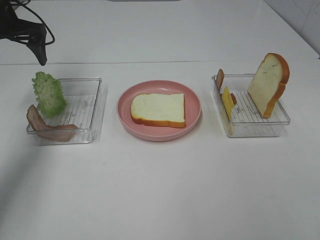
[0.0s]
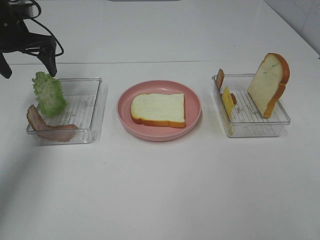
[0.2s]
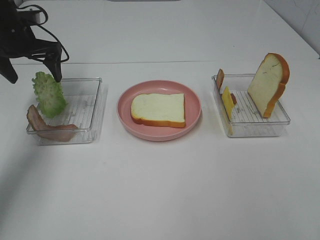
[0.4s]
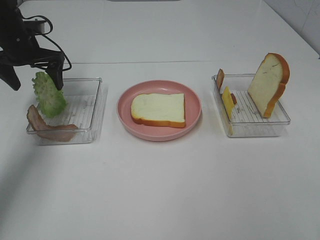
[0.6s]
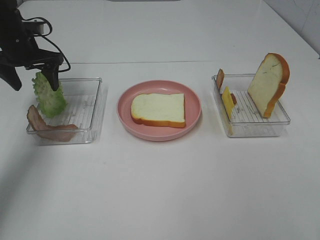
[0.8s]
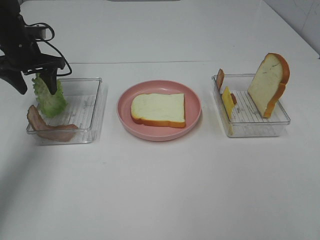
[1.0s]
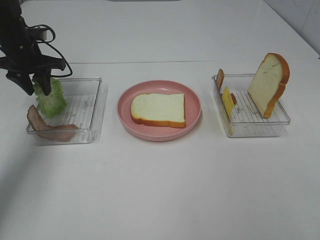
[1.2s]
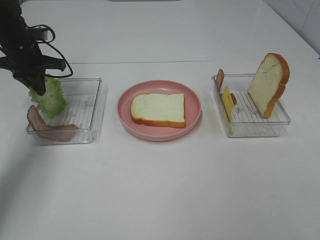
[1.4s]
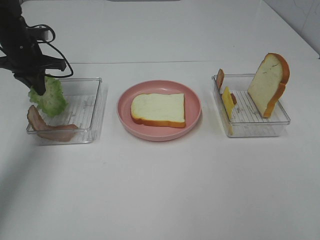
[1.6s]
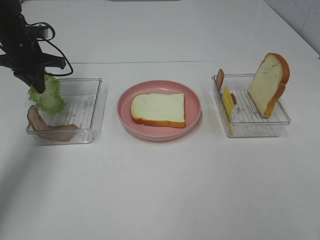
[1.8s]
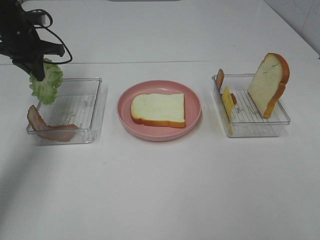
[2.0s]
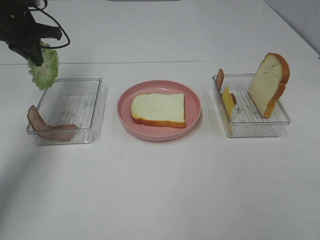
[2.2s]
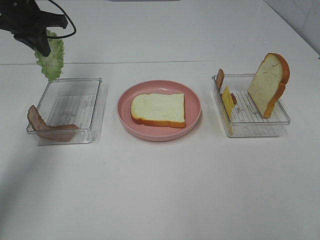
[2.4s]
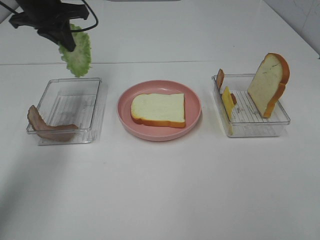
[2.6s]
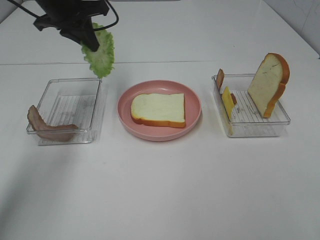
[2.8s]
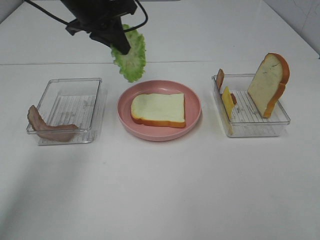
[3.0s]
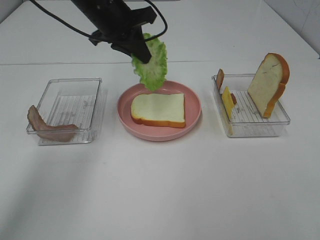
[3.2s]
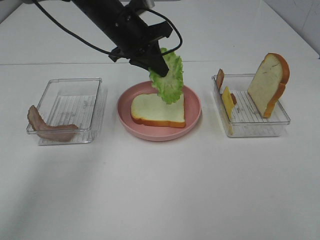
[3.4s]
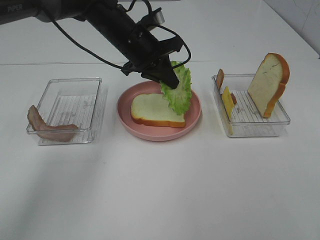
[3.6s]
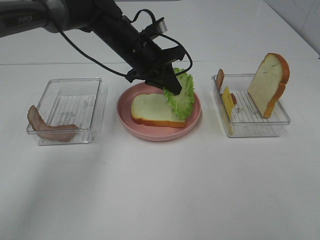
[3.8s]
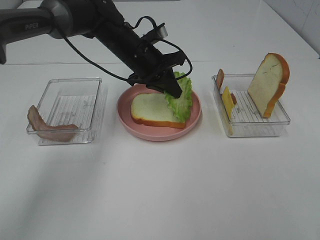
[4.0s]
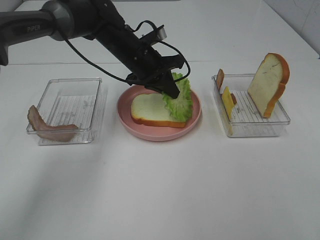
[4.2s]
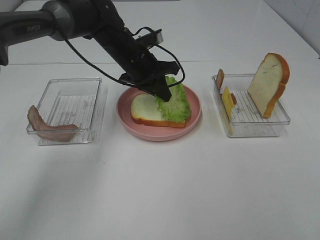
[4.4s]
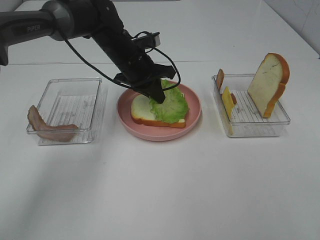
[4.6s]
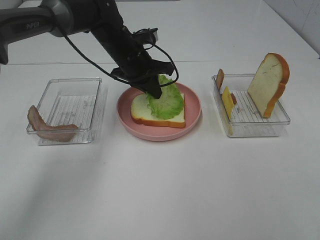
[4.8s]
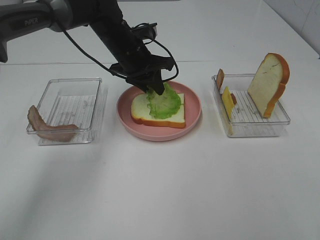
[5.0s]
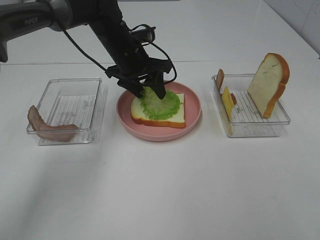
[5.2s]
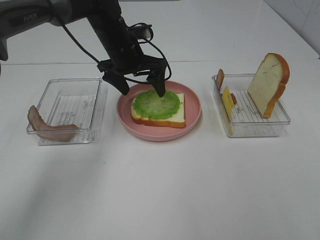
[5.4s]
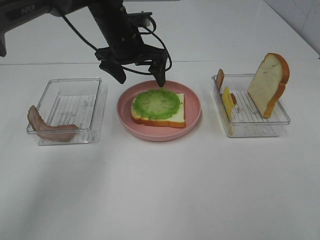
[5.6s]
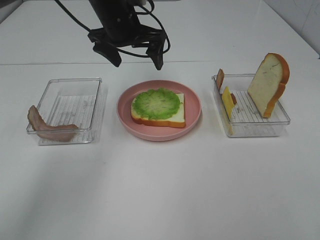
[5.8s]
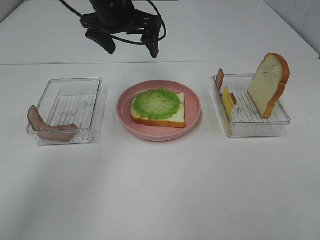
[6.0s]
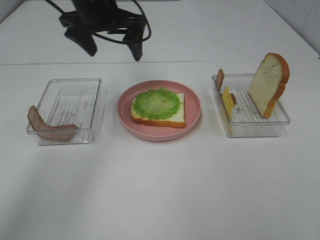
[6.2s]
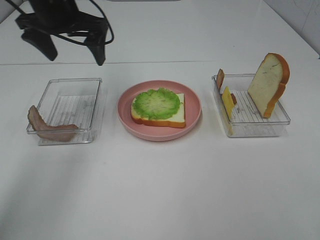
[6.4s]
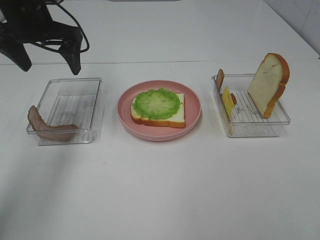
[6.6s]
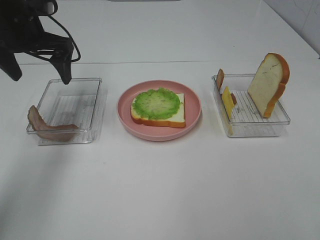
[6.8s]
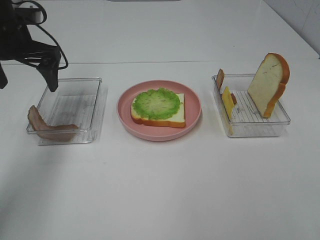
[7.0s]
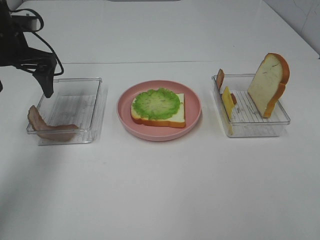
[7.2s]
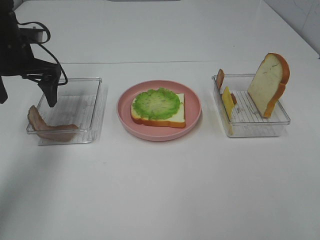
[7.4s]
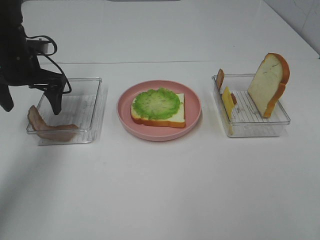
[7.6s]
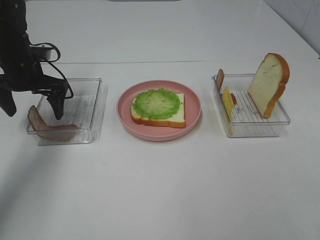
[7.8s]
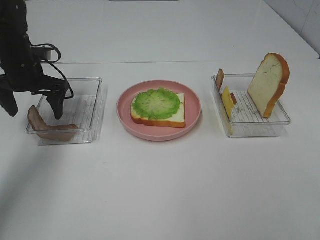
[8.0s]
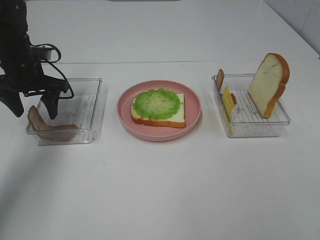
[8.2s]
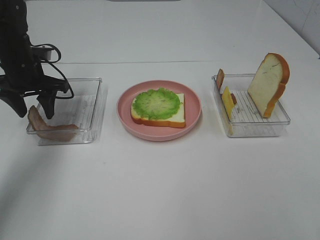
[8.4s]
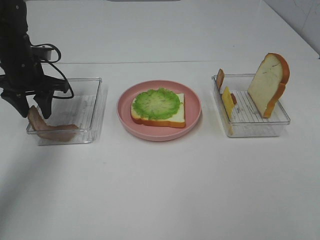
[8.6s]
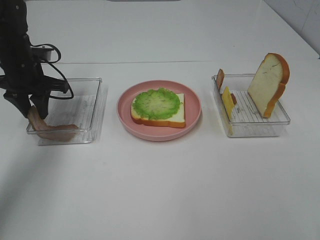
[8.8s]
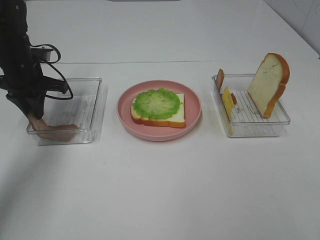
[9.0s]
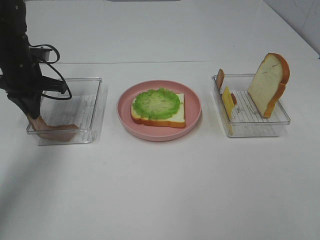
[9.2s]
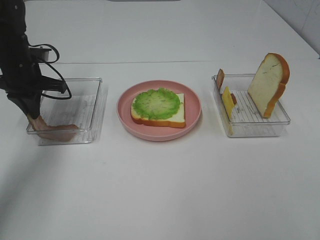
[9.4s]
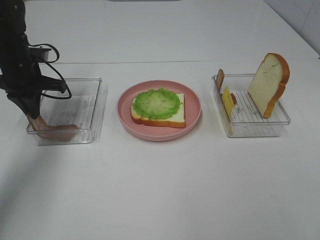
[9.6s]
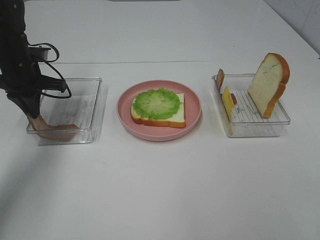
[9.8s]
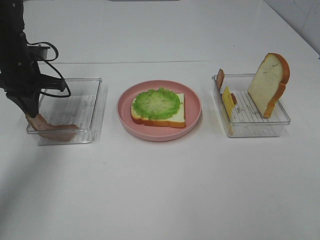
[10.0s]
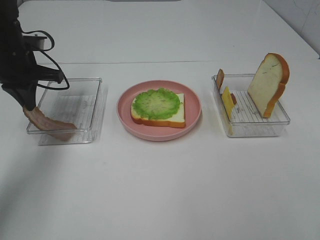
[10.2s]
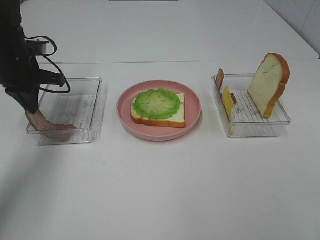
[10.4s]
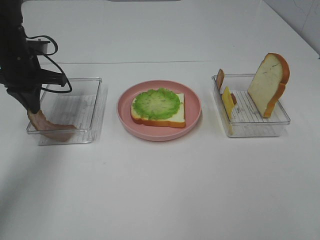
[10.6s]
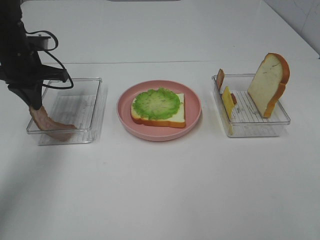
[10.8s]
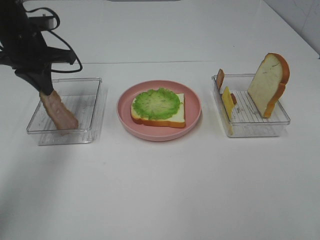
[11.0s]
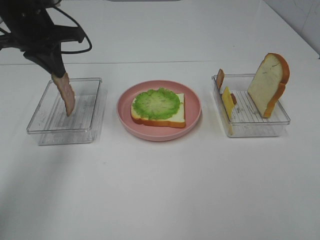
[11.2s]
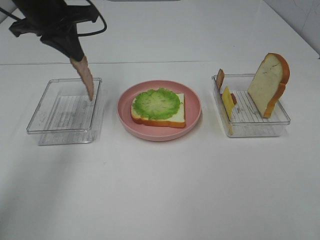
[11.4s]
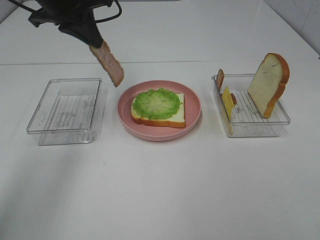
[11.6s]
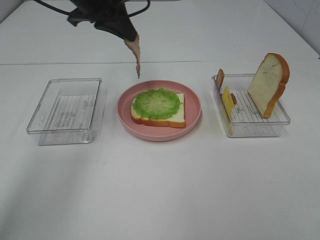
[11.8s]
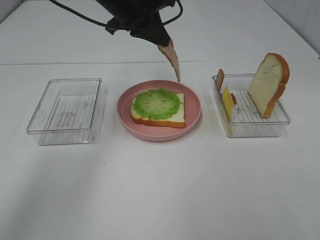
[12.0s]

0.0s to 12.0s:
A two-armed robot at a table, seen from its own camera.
Task of the whole recording: Make sandwiches.
Step, 0.0s to 1.8s: Left hand:grab the lettuce slice.
Step, 2.0s to 5.6s: Left hand:place the lettuce slice on the bread slice.
Step, 5.8s to 9.8s: Left hand:grab the bacon.
0.0s to 1.6s: The left gripper travels downward by about 10 cm, and closes.
1.6s to 3.0s: The left gripper travels to the right and upward by roughly 20 cm.
3.0s to 4.4s: The left gripper goes roughly 15 cm downward and to the right.
4.4s to 6.0s: The left gripper heads upward, covering about 10 cm, and opens its fingers.
6.0s to 7.6s: The left gripper moves to the left and downward, about 20 cm.
7.6s to 9.0s: The left gripper closes its fingers.
9.0s to 10.4s: The grippers make only small movements.
10.4s to 12.0s: The left gripper moves to the right and upward, approximately 20 cm.

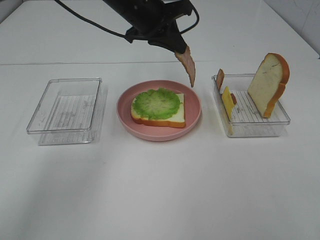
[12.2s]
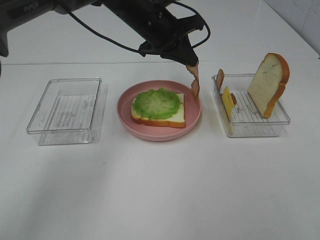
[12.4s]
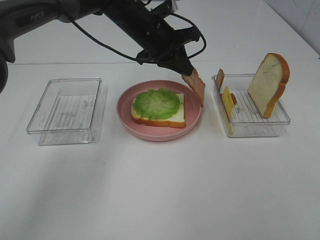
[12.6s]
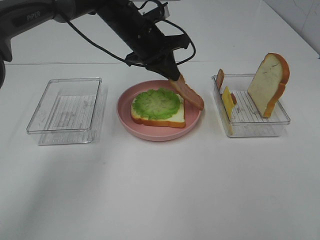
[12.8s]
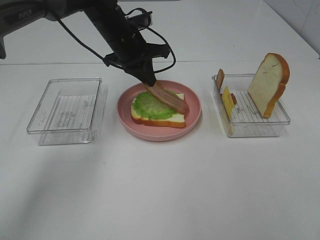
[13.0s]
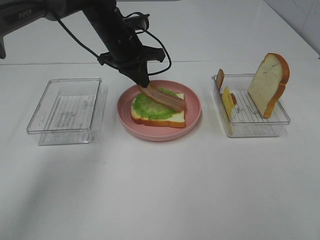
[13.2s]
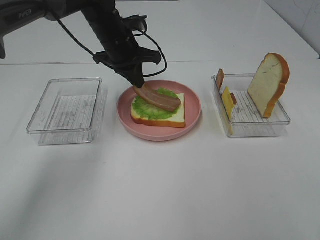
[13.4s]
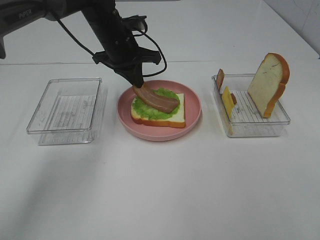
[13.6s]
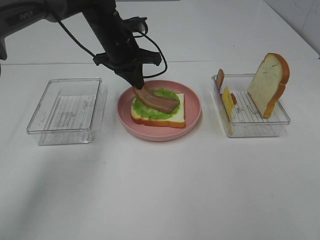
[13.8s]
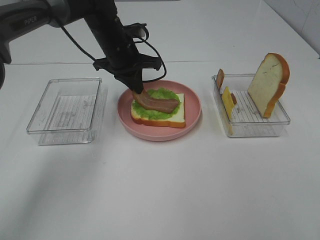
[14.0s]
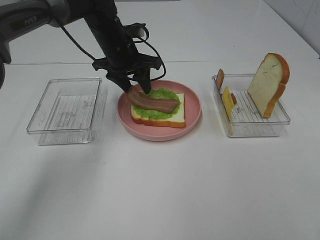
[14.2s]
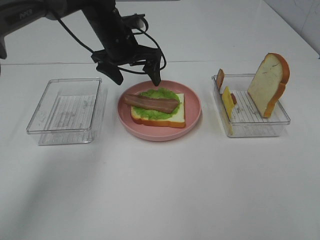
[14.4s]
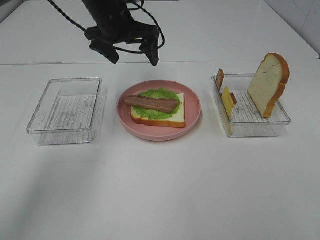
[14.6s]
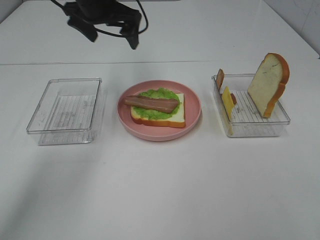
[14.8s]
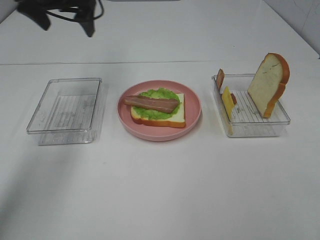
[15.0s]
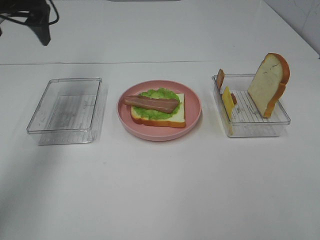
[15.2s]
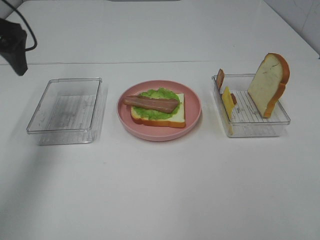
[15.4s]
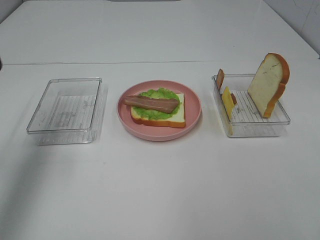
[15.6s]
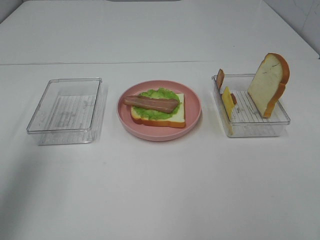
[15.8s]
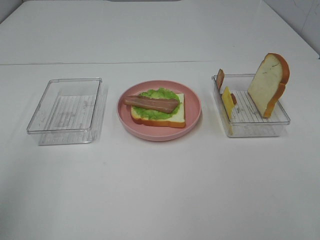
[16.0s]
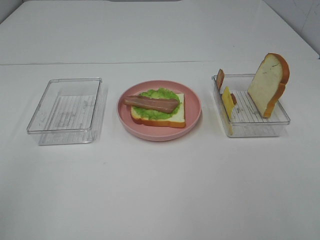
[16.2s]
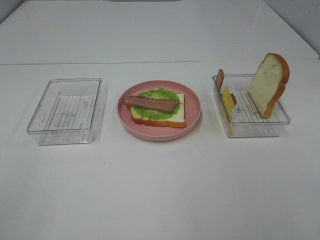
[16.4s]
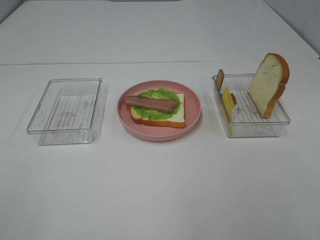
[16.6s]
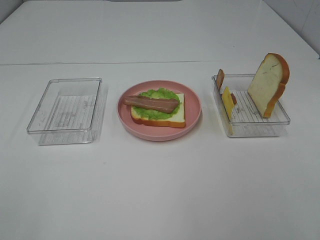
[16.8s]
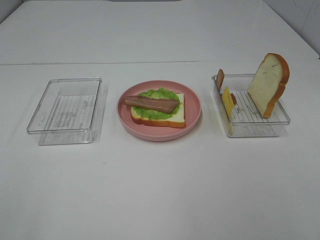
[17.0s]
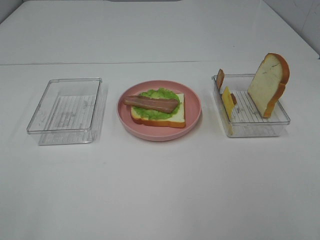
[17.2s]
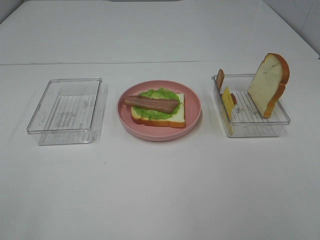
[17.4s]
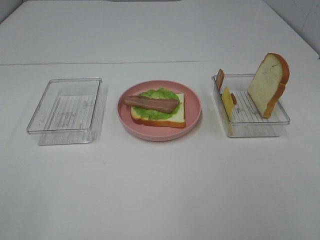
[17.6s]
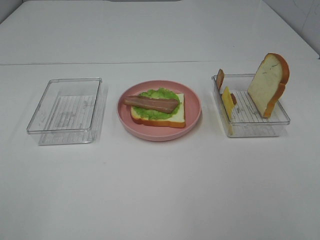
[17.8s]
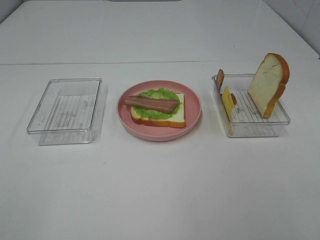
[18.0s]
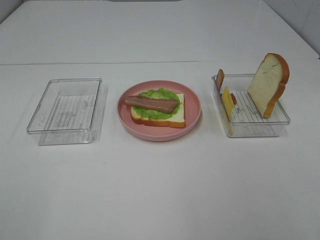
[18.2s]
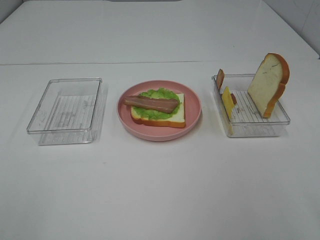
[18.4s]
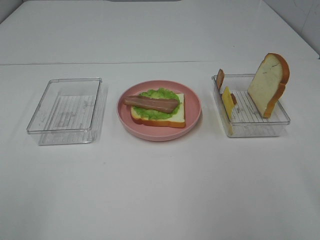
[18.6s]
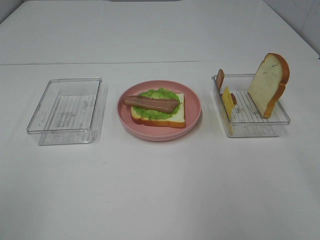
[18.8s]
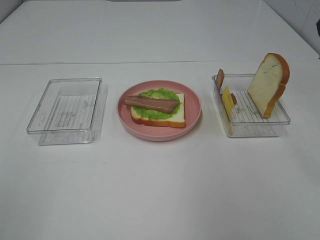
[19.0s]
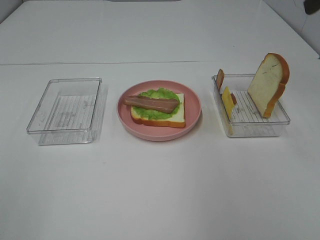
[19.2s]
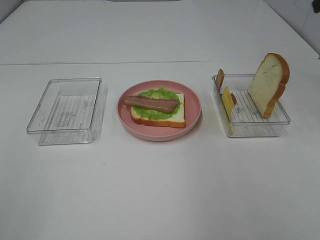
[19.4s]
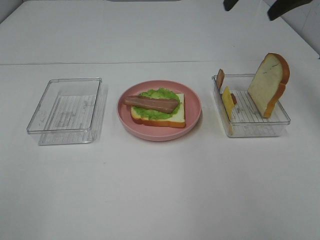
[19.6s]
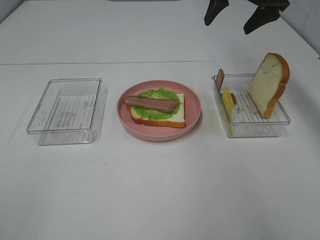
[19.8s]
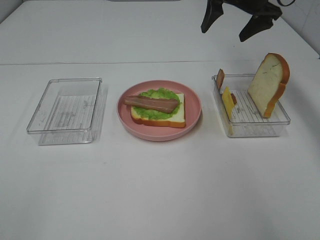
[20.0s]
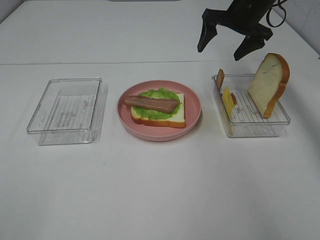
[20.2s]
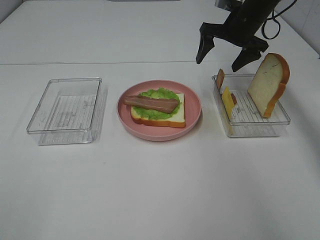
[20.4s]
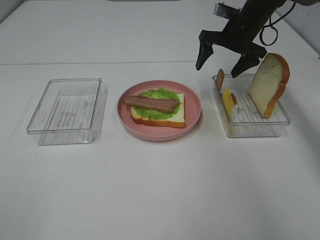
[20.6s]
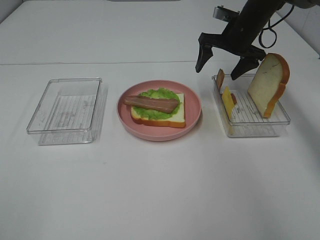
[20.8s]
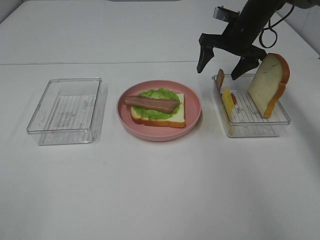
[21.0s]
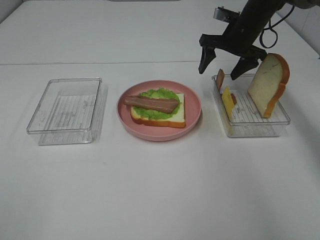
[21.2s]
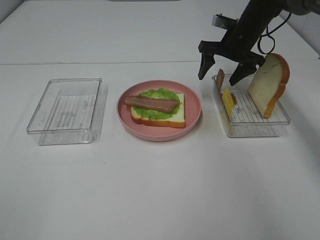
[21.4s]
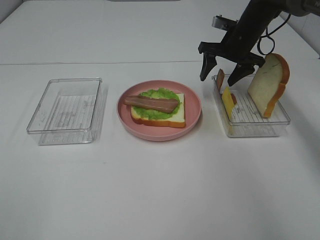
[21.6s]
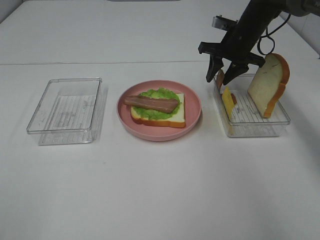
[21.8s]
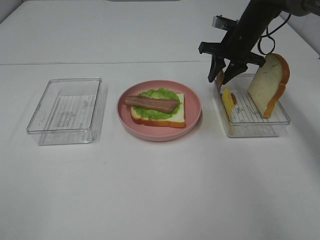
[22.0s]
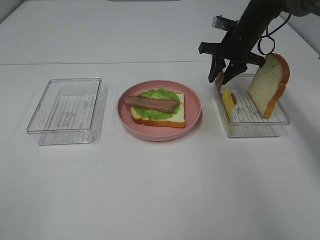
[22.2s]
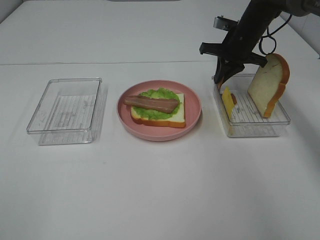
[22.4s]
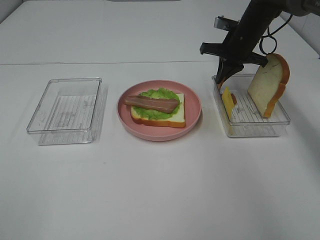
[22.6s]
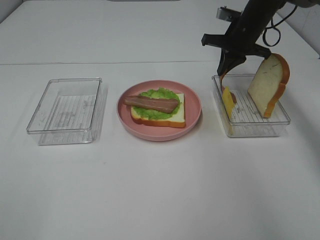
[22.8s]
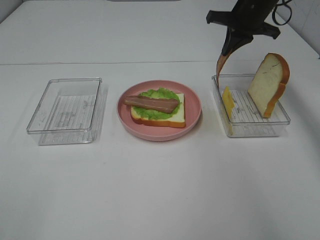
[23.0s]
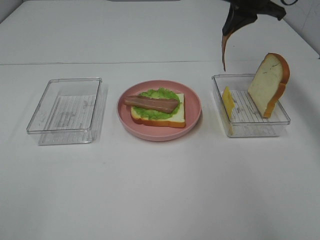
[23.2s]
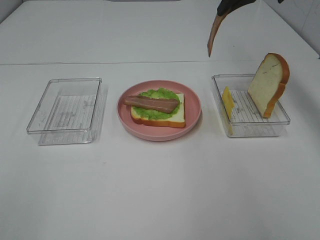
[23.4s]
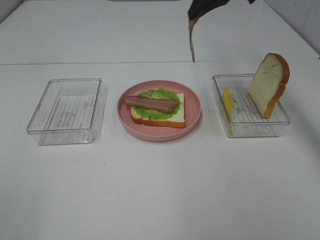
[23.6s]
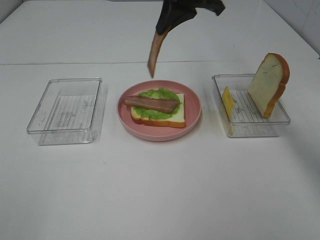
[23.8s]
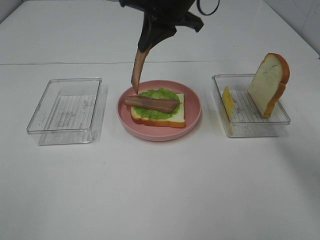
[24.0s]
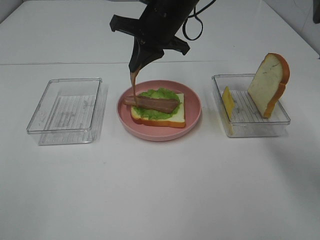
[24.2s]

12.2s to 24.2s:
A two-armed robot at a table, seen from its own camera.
Task of the whole recording: Make sandwiches.
Step, 12.2s to 14.4s: Left hand:place bacon on lettuce slice.
Step, 14.6s to 22.6s: Right hand:grab the bacon.
12.2s to 13.8s: The left gripper travels downward by roughly 5 cm.
13.8s to 15.2s: The left gripper is displaced to the left and upward by some 25 cm, and opens up.
15.2s to 16.6s: The left gripper shifts approximately 40 cm backward.
18.2s to 19.8s: The right gripper moves forward, some 50 cm.
19.8s to 21.2s: The right gripper goes approximately 10 cm downward.
21.2s to 22.6s: The right gripper closes its fingers.
22.6s to 24.2s: The right gripper is displaced to the left, backward and upward by approximately 20 cm.
